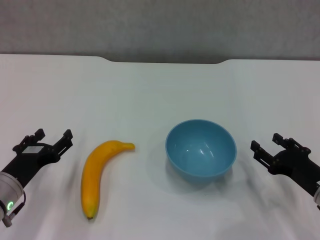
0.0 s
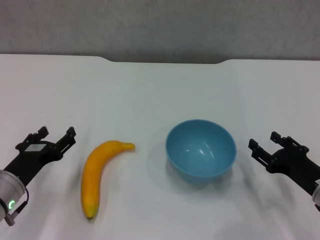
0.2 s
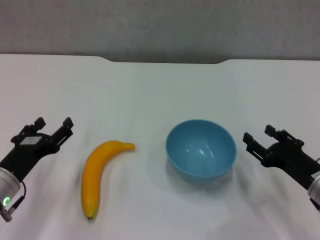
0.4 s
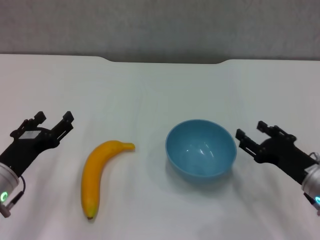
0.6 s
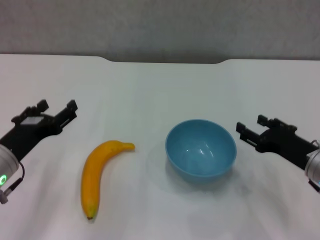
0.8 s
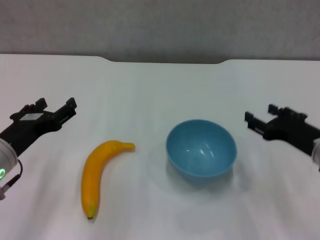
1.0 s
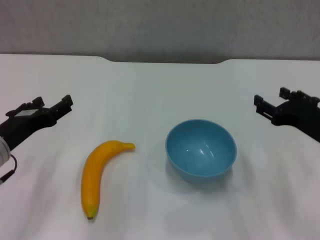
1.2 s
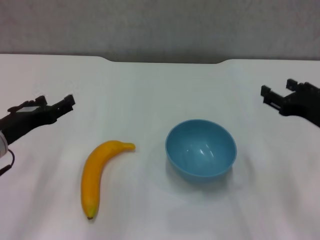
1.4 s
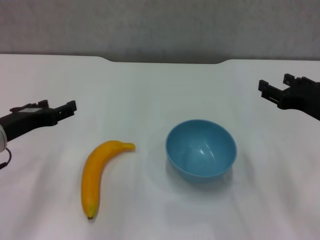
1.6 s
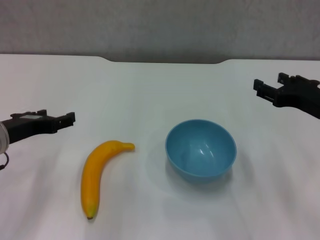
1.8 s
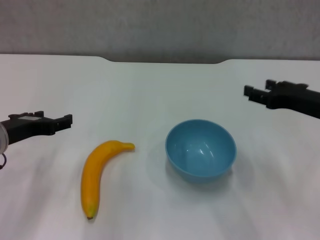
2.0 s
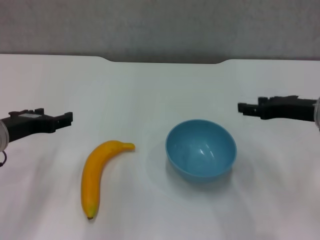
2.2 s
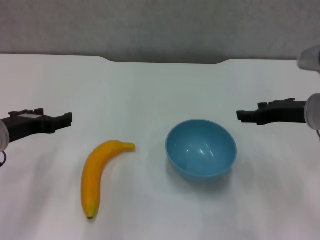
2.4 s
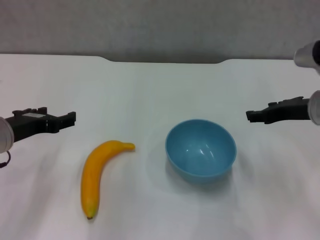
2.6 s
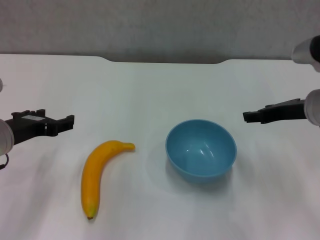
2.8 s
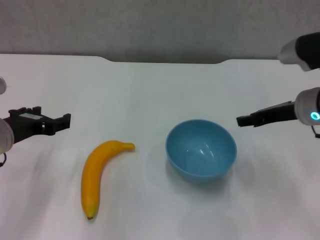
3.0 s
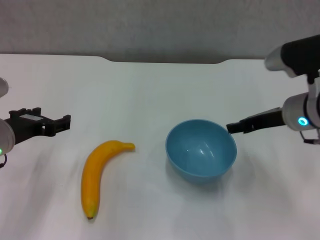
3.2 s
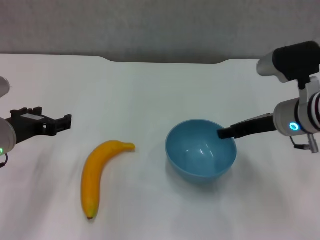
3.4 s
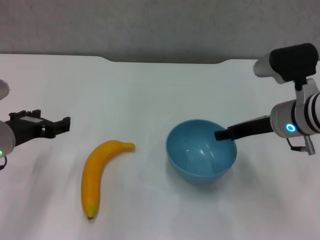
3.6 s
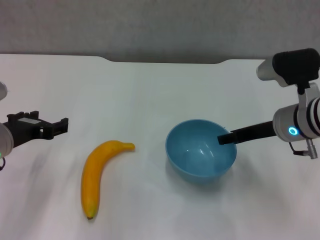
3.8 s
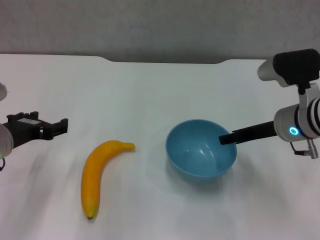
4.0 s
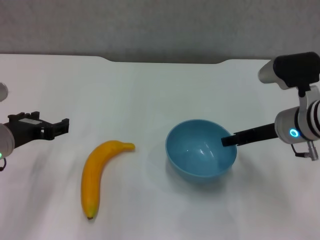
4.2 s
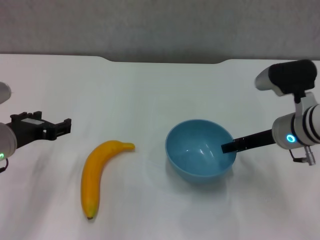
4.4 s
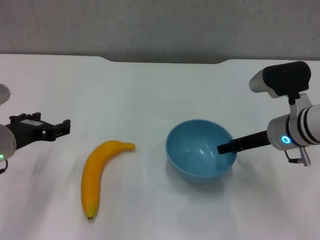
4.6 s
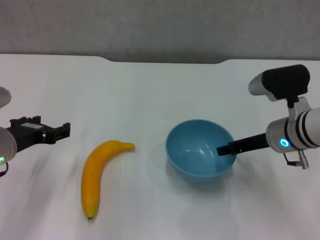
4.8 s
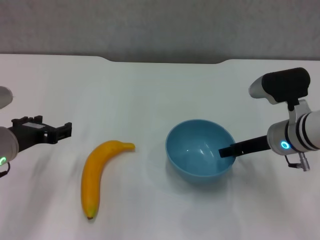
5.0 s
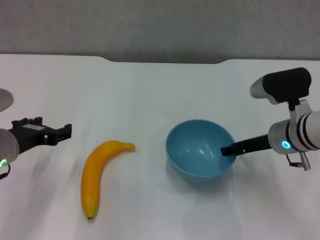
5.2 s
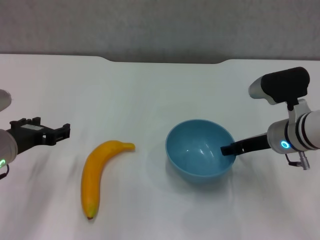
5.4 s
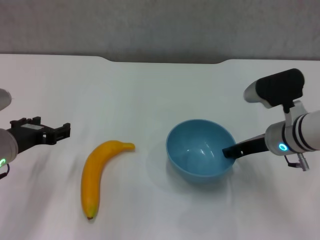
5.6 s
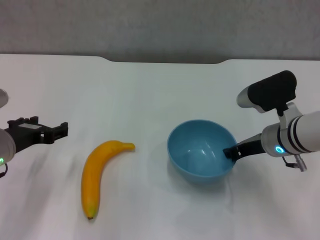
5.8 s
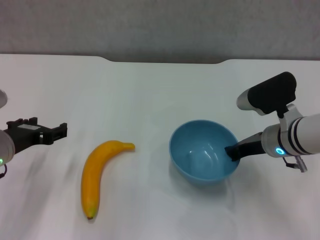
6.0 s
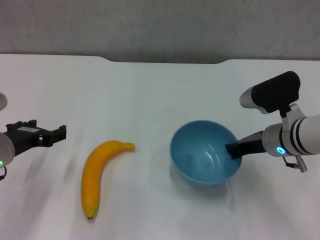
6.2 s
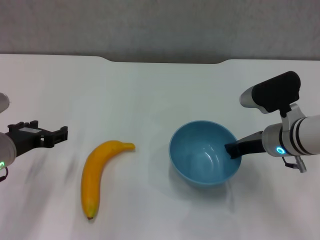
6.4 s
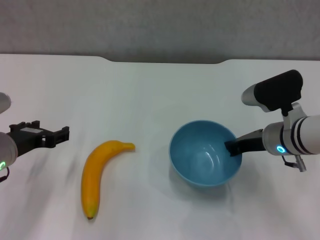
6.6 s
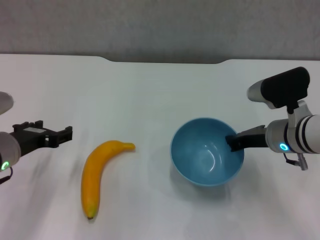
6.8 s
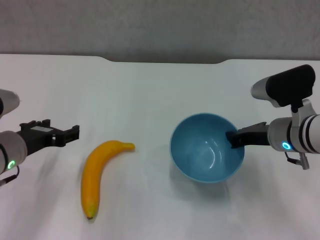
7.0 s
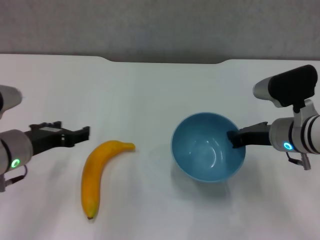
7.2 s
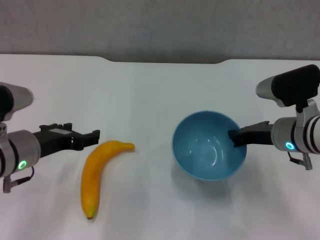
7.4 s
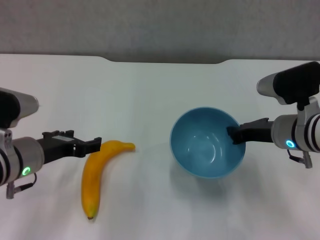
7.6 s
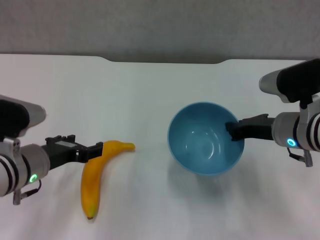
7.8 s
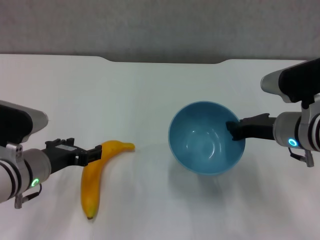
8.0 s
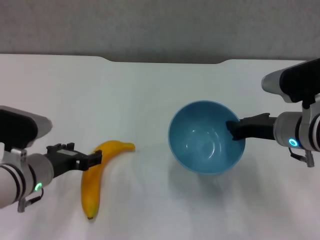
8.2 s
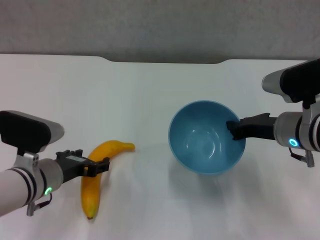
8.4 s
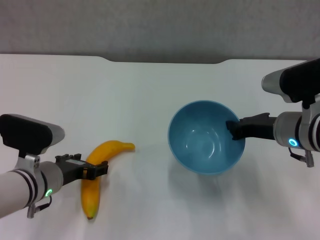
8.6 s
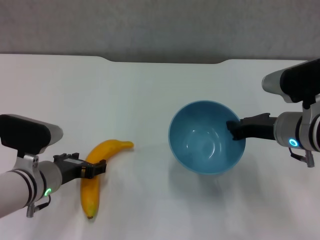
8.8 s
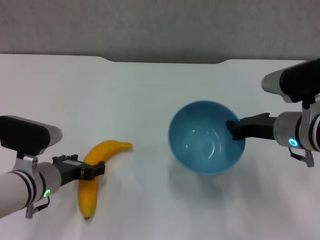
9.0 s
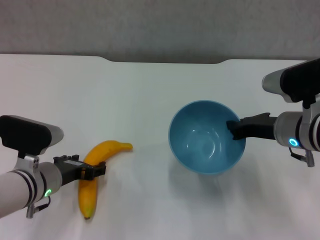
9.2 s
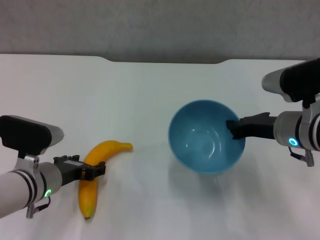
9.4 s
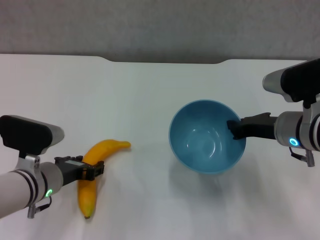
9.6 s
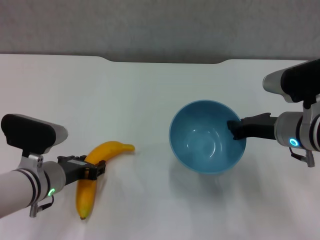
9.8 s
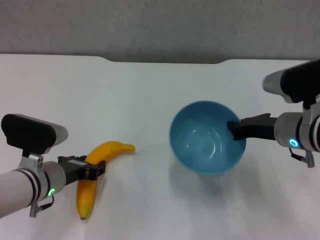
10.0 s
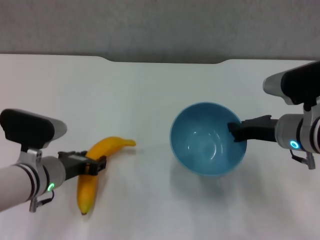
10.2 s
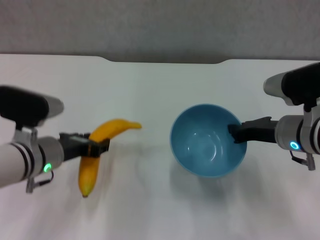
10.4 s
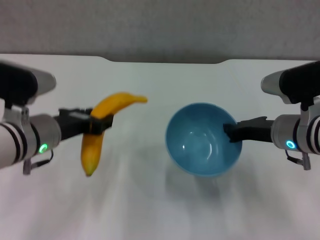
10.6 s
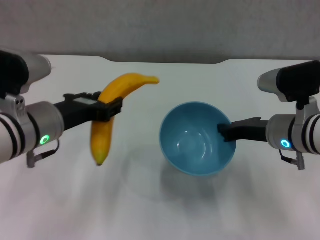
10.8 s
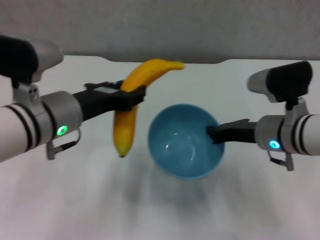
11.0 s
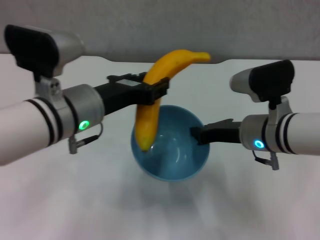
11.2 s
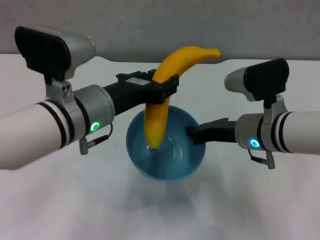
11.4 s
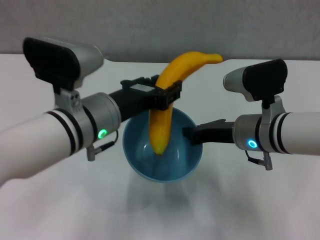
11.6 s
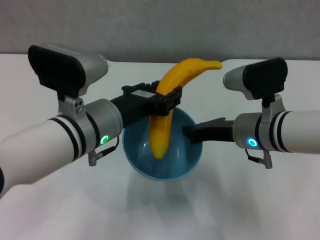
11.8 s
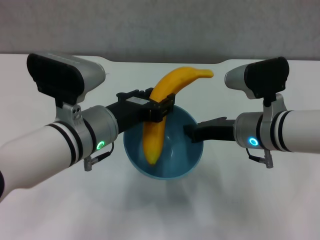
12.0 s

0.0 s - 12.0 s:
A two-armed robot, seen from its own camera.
Step, 0.0 s - 6.0 s: Grasp the blue bowl with right gripper.
Step, 6.2 s - 7.8 s: Lift the blue bowl with right gripper.
Step, 8.0 s - 9.6 s: Grasp the banana with left gripper.
0.0 s - 1.6 s: The grippers both shift upward by about 10 cm.
1.6 s - 3.0 s: The right gripper goes some 5 cm forward.
3.0 s - 4.4 s: The right gripper moves approximately 5 cm.
4.4 s - 6.0 s: The right gripper closes.
6.0 s - 7.6 s: The grippers move only a little.
7.6 s - 9.0 s: The left gripper moves downward, some 5 cm.
9.0 s - 10.4 s: The left gripper ends up approximately 5 cm from where it was, and closes its fingers.
10.4 s - 12.0 s: The left gripper heads to the right and upward, covering some 10 cm. Meanwhile the right gripper moves to the left, roughly 5 cm.

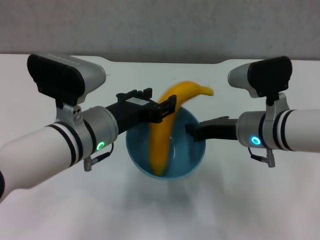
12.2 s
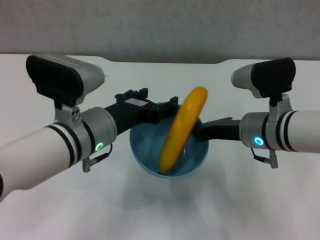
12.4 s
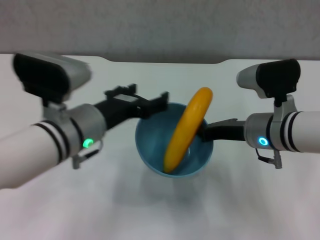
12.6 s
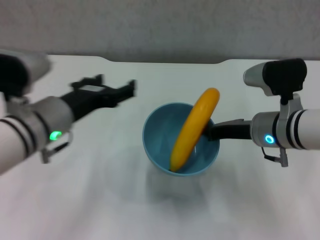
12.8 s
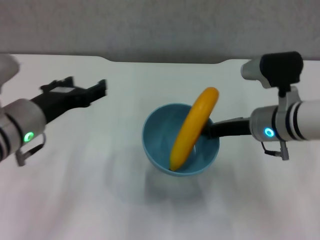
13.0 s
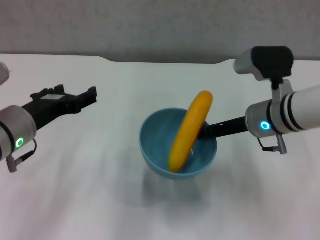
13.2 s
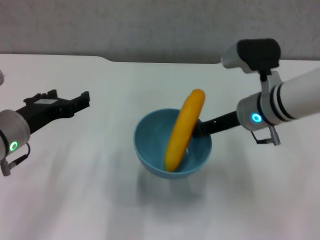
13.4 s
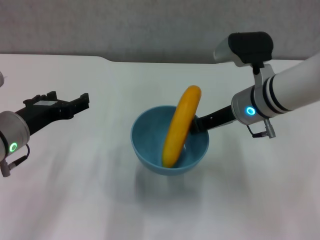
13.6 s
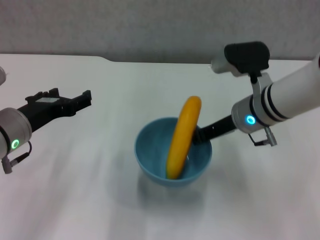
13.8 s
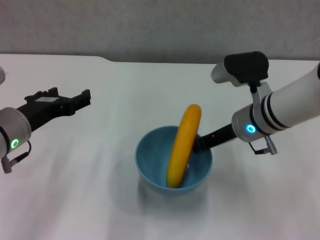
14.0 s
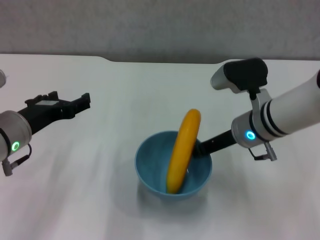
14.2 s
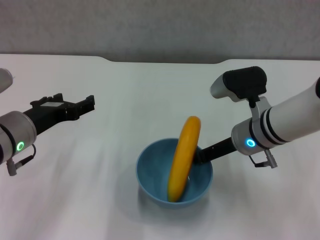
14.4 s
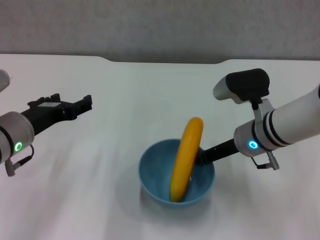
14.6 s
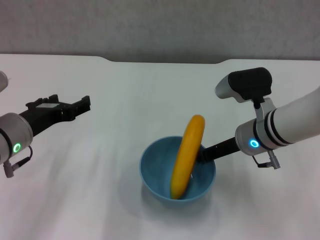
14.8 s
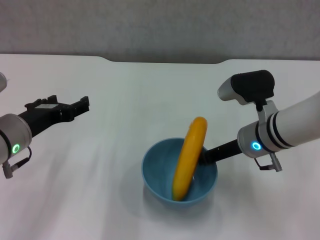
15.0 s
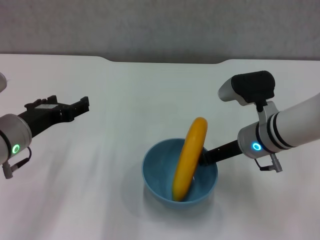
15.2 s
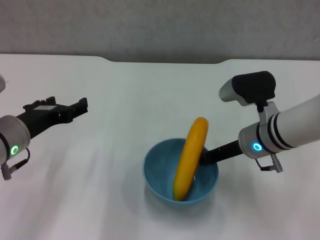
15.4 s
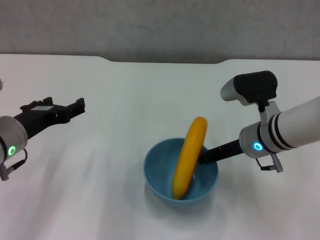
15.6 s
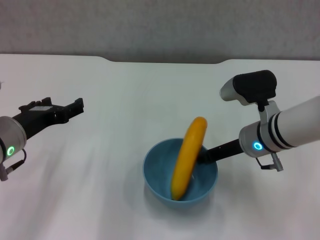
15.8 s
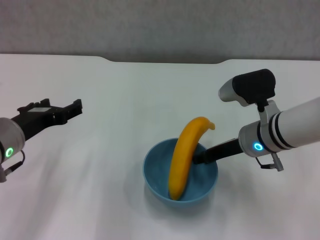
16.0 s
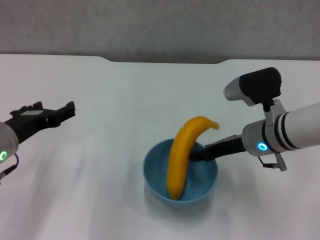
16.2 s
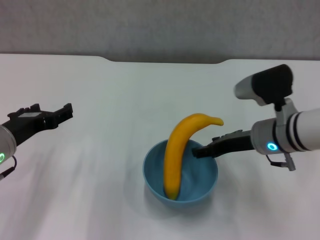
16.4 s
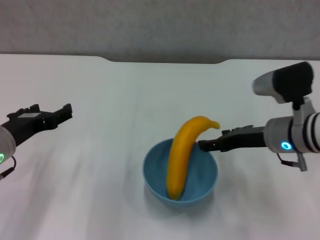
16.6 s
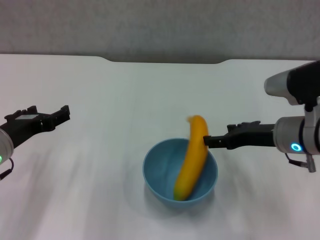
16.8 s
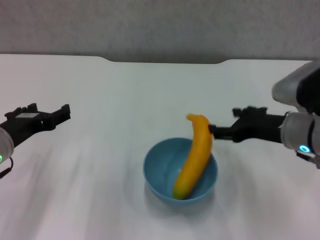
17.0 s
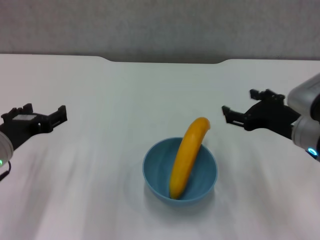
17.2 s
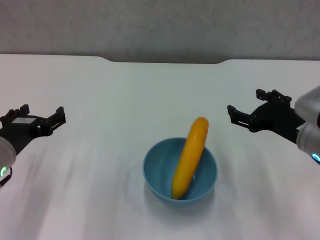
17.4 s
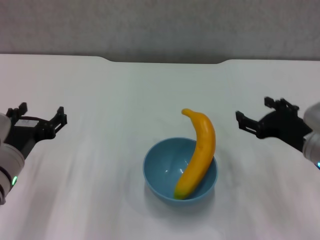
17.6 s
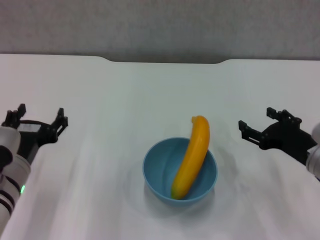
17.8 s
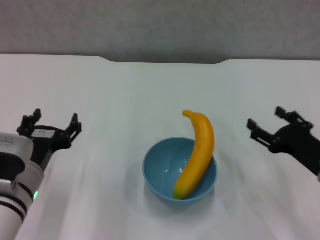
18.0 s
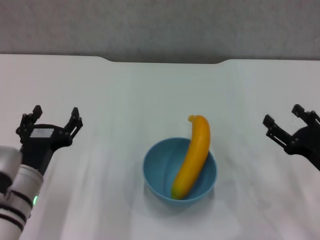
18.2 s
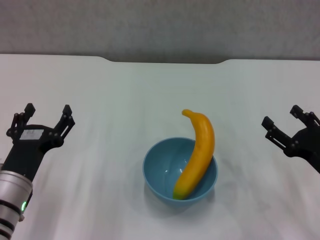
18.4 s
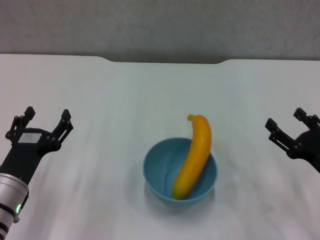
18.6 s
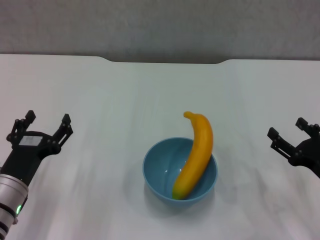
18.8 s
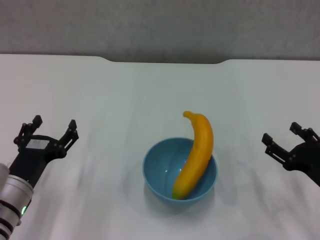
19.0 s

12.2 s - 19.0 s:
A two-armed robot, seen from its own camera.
Step, 12.6 s - 16.4 s: Place the bowl on the table with right gripper.
12.2 s - 13.6 s: The right gripper is displaced forward by some 5 cm. Meanwhile the left gripper shifts roughly 10 cm to the left, and opens up.
13.6 s - 15.0 s: The right gripper moves about 5 cm.
15.0 s - 16.2 s: The grippers make only small movements.
16.2 s - 17.6 s: The right gripper is displaced to the right and backward by approximately 10 cm, and opens up.
17.6 s - 19.0 s: The right gripper goes about 10 cm downward, backward and to the right. The left gripper moves downward, about 5 cm.

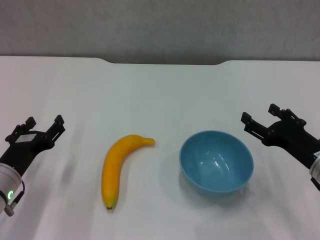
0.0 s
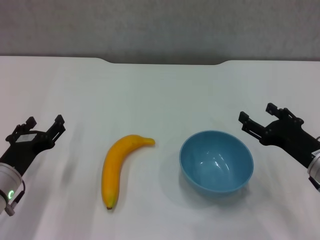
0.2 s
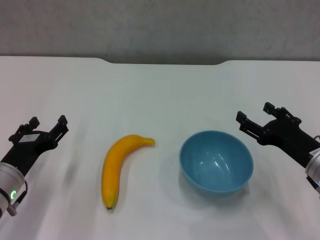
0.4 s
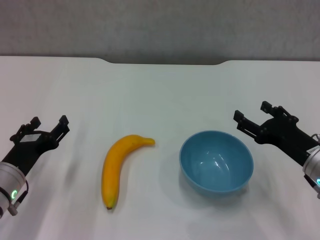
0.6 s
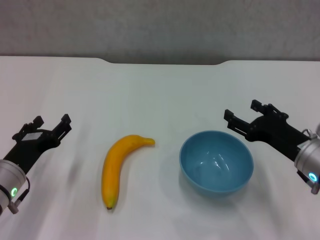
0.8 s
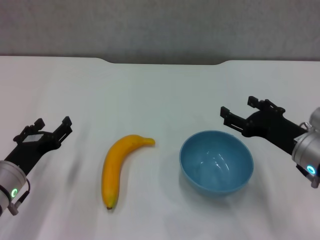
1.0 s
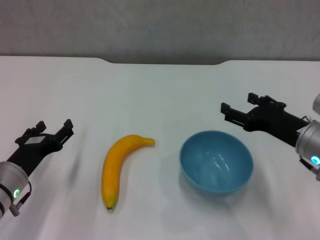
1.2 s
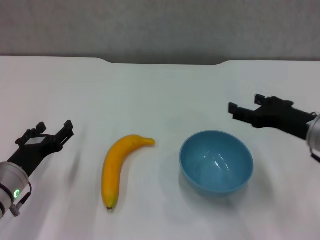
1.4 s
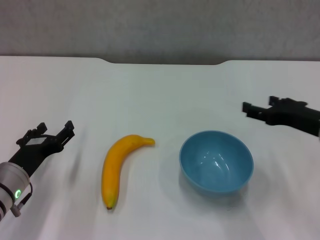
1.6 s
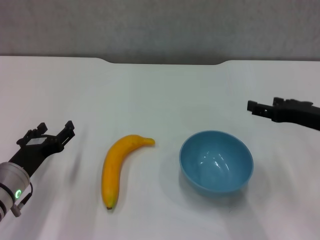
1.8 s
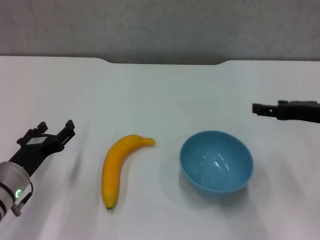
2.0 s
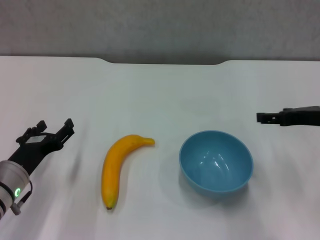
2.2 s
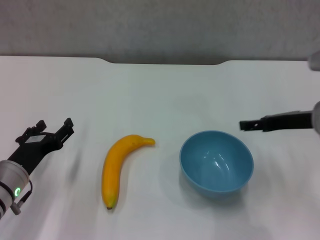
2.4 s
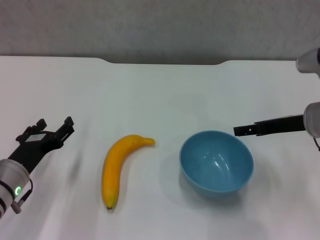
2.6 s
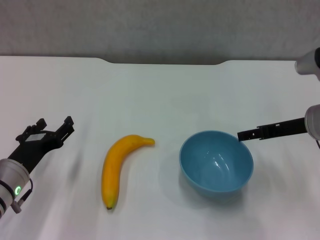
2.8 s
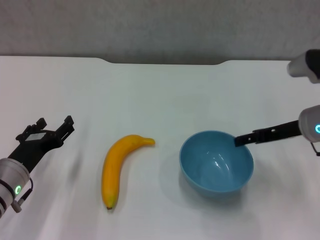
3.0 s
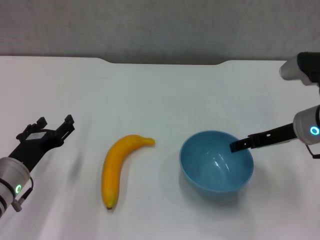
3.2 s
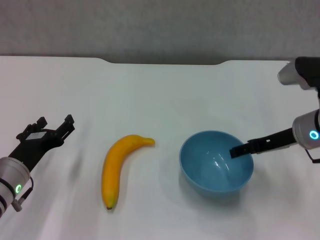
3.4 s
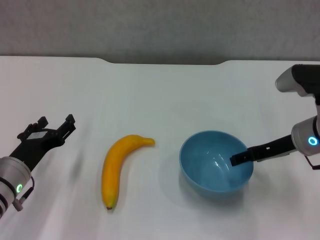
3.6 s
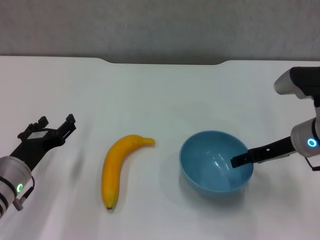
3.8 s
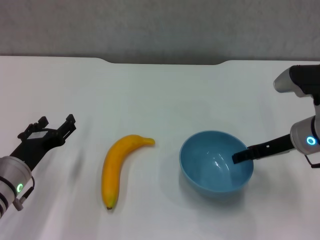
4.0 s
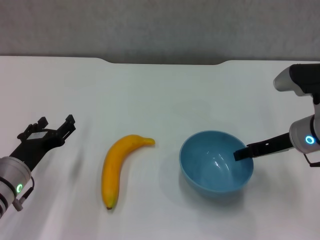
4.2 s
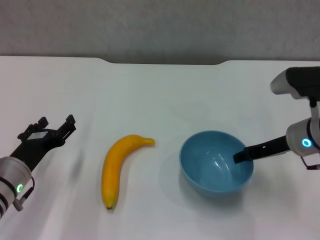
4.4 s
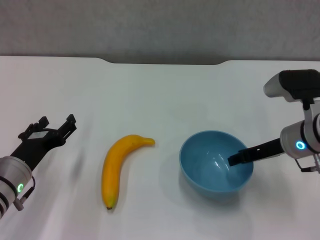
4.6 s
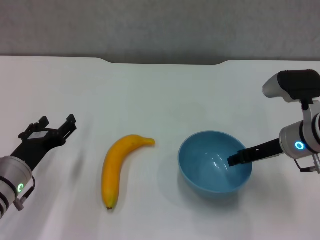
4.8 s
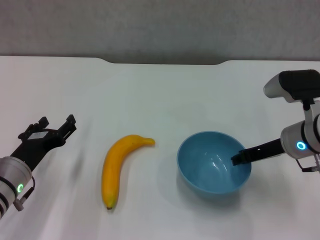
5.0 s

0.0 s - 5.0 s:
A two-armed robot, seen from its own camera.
0.0 s - 1.6 s: The right gripper goes roughly 5 cm upward.
1.6 s - 3.4 s: The right gripper ends up roughly 5 cm from where it was.
3.4 s - 5.0 s: The right gripper closes its fingers.
